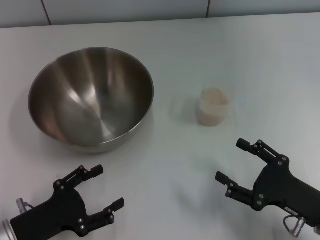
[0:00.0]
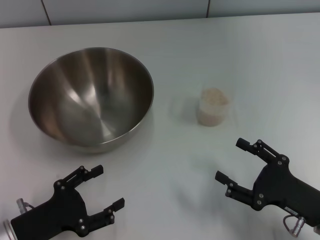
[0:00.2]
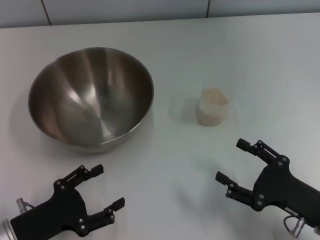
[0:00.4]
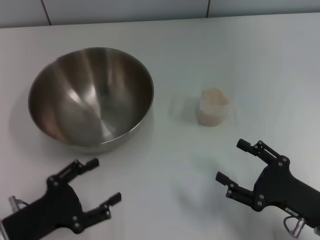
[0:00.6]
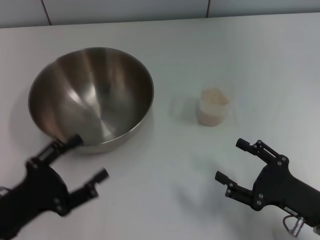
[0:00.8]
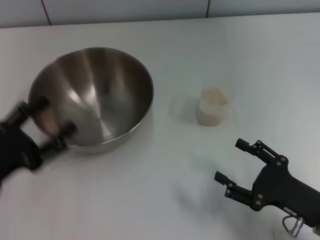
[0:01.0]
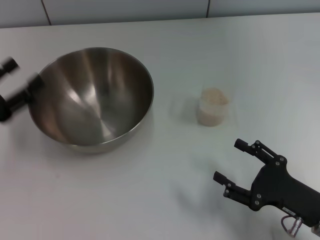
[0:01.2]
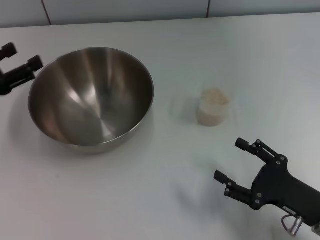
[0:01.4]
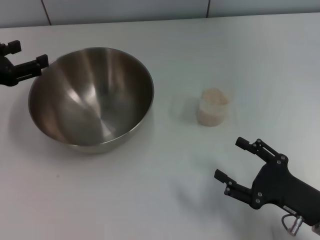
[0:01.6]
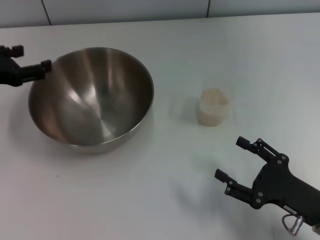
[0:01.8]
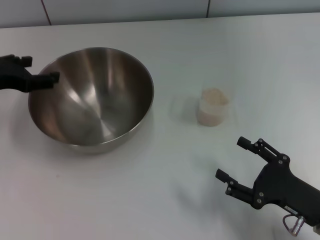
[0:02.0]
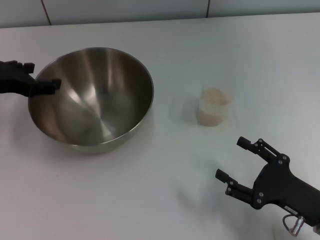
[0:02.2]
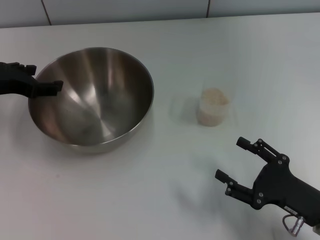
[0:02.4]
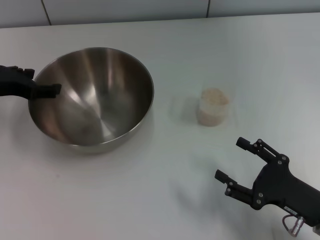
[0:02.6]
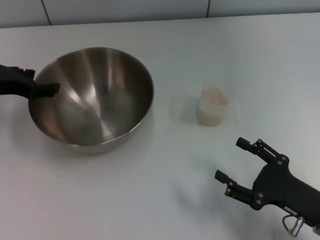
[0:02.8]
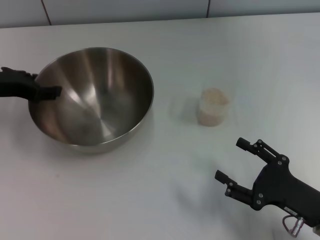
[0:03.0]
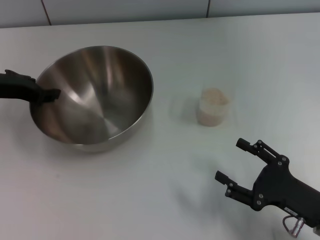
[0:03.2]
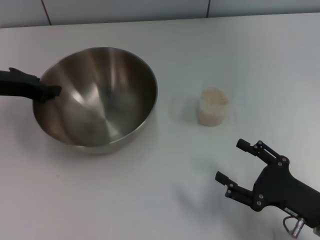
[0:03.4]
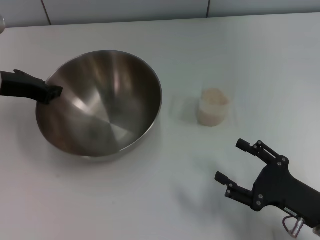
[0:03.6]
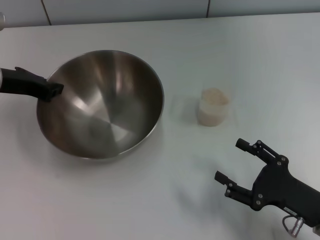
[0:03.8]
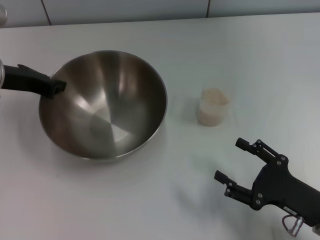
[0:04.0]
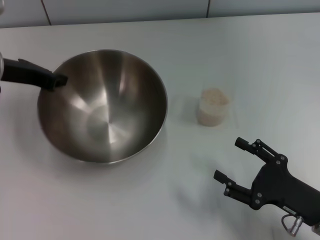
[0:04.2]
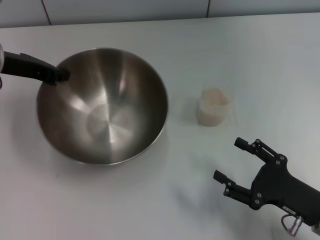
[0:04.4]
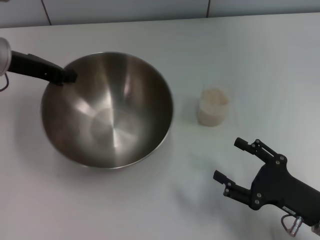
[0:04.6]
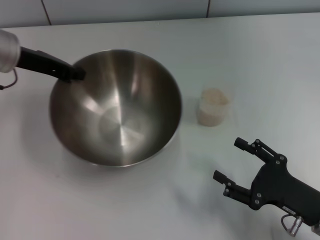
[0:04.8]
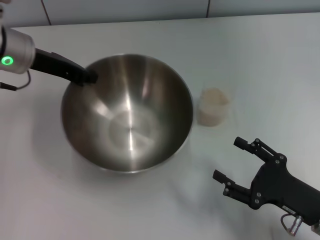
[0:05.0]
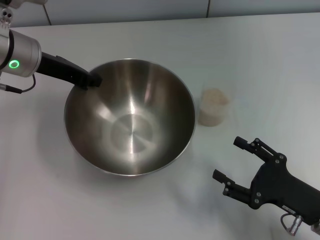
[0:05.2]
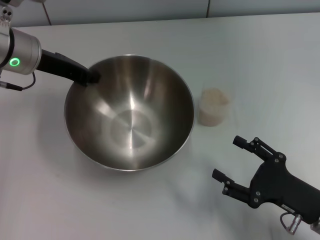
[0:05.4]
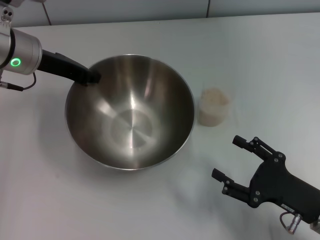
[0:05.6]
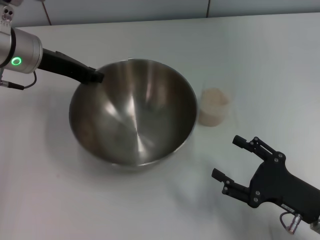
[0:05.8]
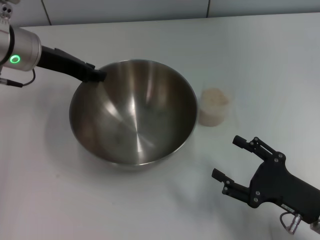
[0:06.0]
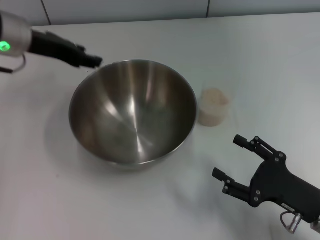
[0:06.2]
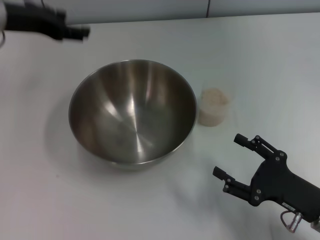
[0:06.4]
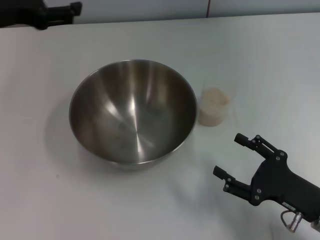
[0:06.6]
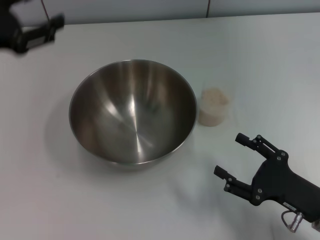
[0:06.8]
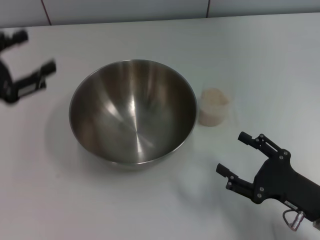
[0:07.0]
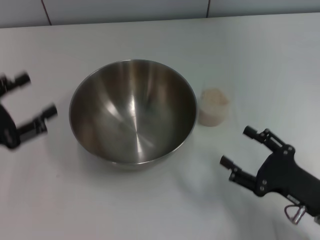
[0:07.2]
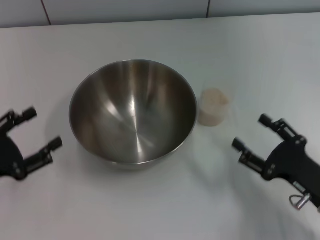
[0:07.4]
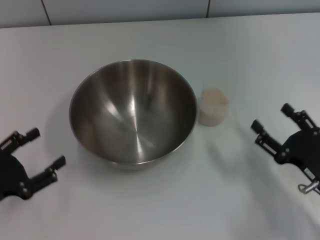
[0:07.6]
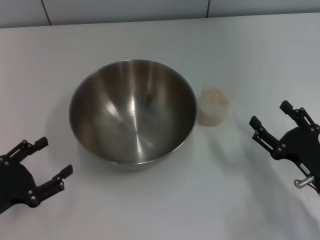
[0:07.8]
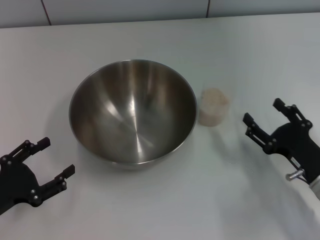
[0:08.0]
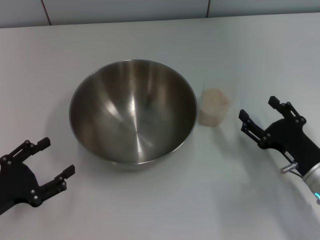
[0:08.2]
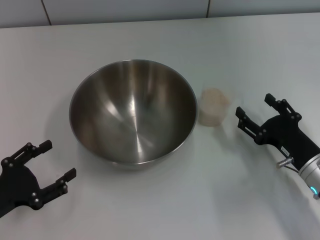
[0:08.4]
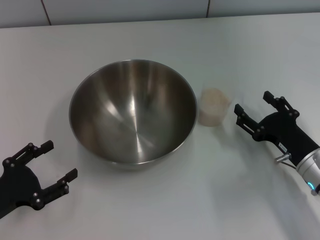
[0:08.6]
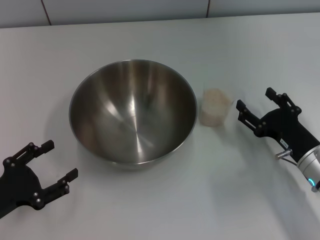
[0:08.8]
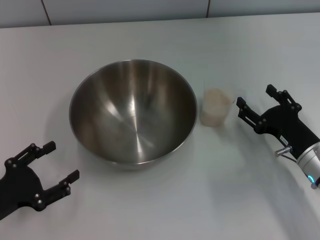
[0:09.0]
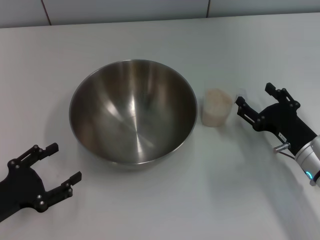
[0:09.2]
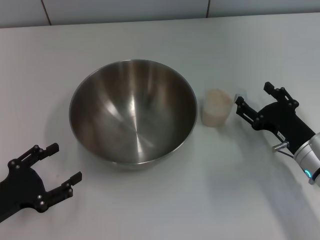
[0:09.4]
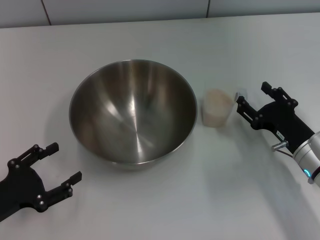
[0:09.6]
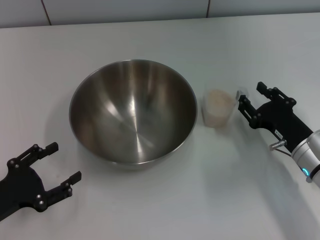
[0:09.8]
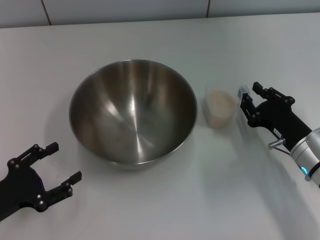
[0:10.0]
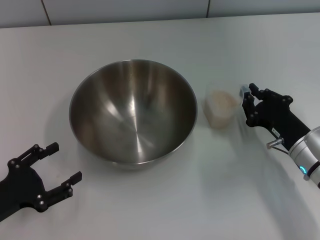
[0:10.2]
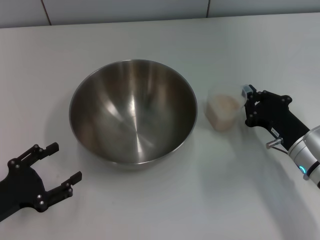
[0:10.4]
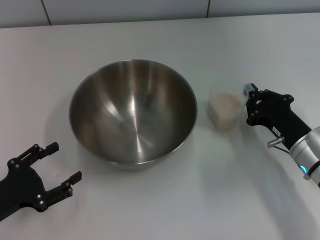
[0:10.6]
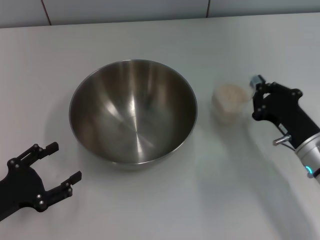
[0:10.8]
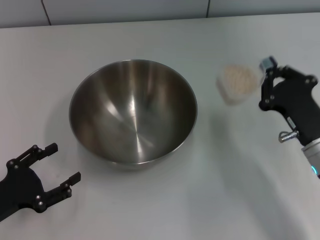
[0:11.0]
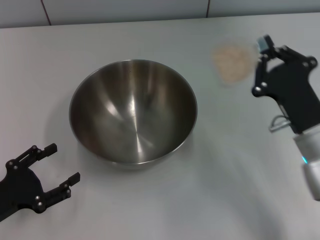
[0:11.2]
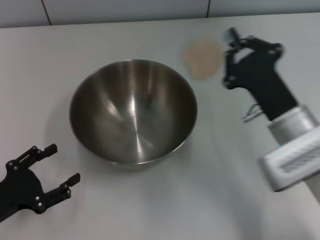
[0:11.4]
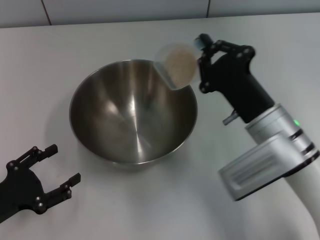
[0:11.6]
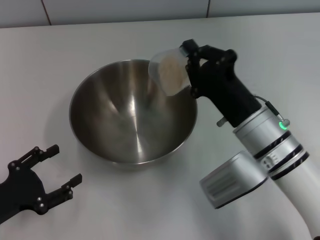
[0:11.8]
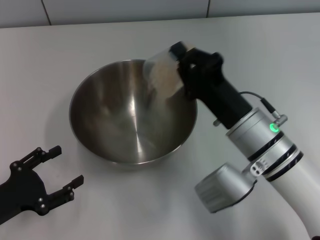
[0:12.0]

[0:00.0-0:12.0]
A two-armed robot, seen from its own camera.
Task of the whole recording: Place the bowl in the middle of the table with one hand and pour the rice from the grain cup into it with the other hand.
Step, 0:00.0 to 0:04.2: Pick up the bowl with the left gripper.
Step, 0:04.6 to 0:06.2: Place the bowl in the center of view with the left gripper.
Step, 0:06.4 to 0:11.2: Pick up the cup with rice in it with the right gripper.
0:00.0 to 0:01.6: The left gripper heads forward and upward, covering some 20 cm.
0:01.6 to 0:03.0: The left gripper ends up about 5 cm from where it was.
0:03.0 to 0:04.4: The left gripper ends up about 5 cm from where it was, and closes.
0:06.0 to 0:07.6: The left gripper travels backward, downward and to the left by approximately 30 cm, and opens.
0:07.6 to 0:09.0: The right gripper shifts some 5 cm forward.
0:09.0 to 0:10.4: The right gripper closes.
0:10.4 to 0:12.0: The right gripper goes about 10 cm to the left and upward.

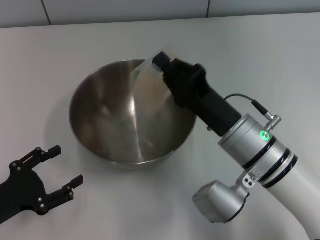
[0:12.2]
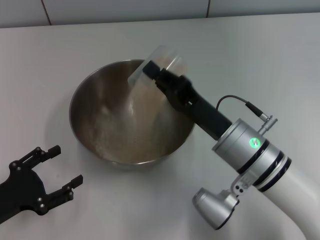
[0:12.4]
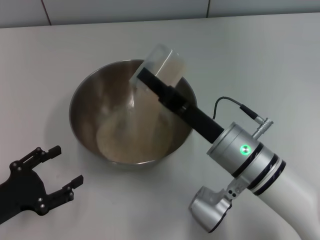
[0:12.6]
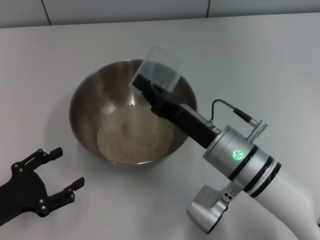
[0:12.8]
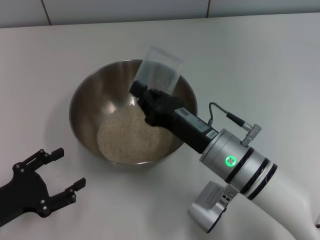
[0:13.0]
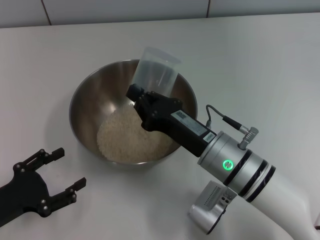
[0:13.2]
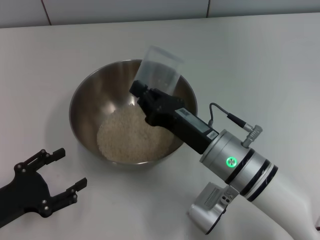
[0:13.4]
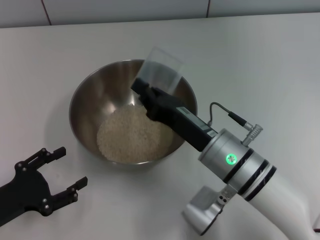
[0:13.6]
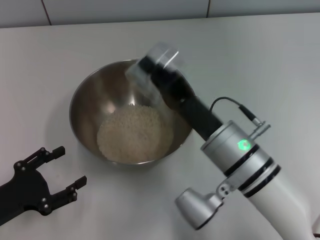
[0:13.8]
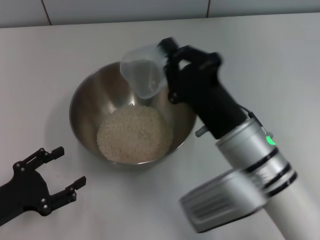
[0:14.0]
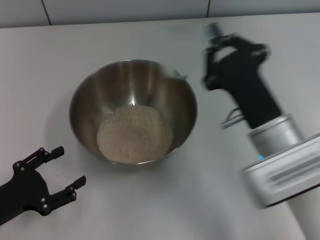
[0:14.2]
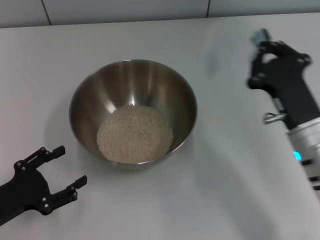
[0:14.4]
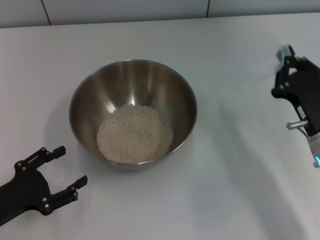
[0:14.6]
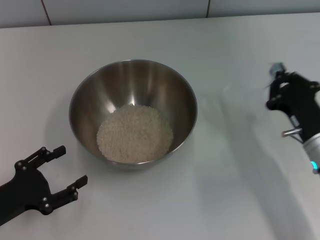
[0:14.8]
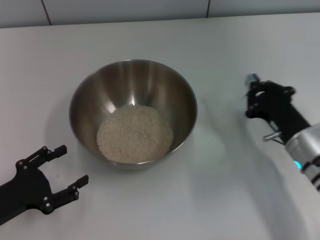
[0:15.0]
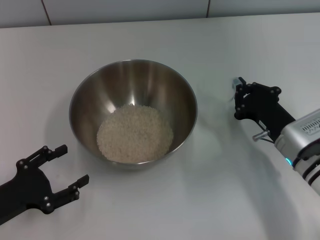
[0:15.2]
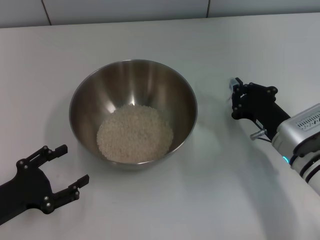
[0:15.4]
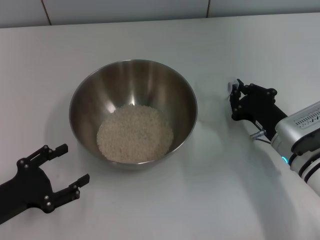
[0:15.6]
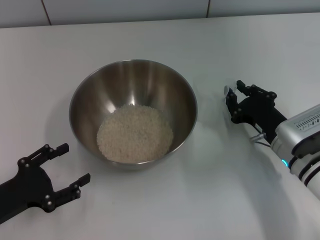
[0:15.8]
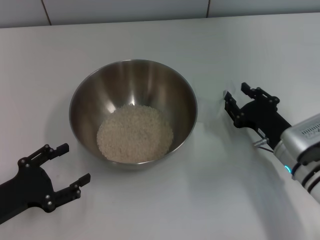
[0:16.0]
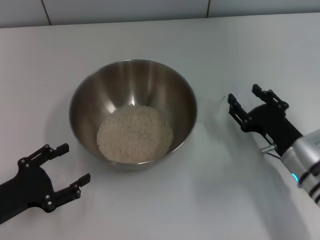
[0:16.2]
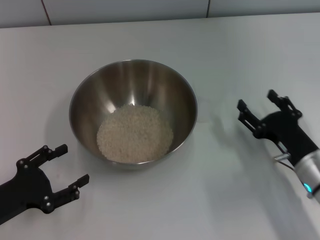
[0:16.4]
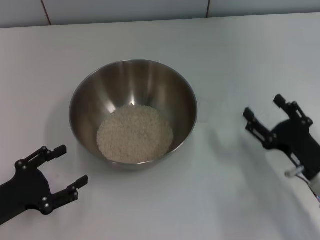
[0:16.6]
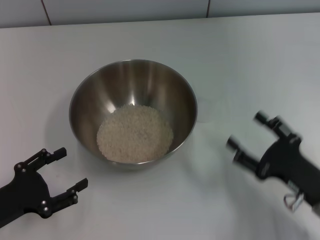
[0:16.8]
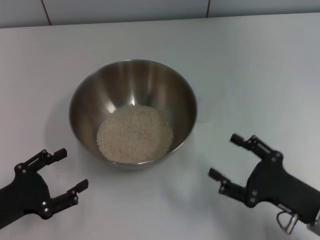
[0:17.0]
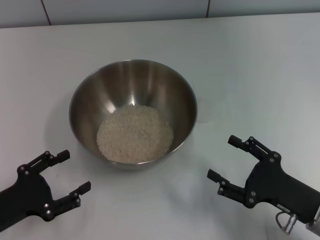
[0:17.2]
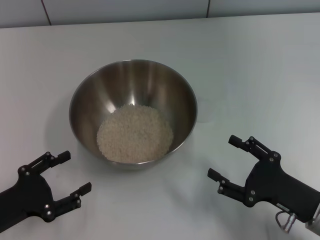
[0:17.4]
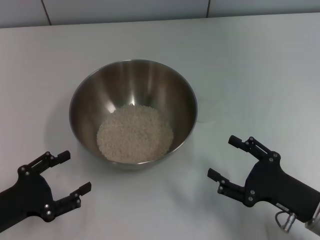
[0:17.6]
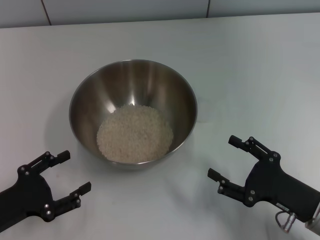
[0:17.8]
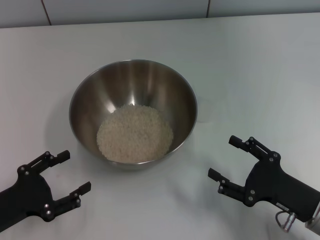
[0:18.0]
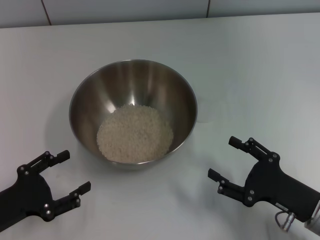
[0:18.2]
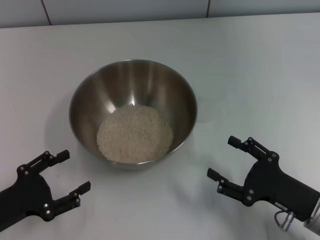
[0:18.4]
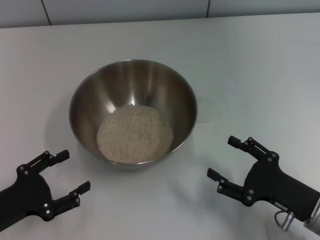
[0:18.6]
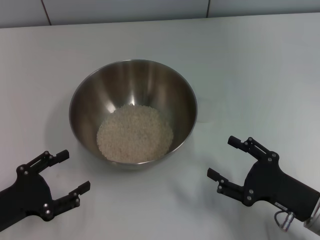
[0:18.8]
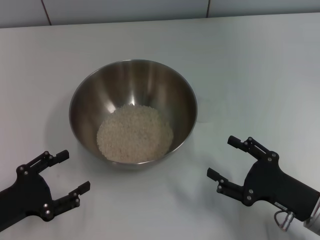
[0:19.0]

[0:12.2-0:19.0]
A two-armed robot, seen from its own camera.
Task of the whole recording: Place the bowl in the middle of the table with one hand and pour the rice from the grain cup into it with the other hand.
Step, 0:12.2 to 0:14.0: Pour the rice from the cup into the bowl with the right gripper.
Step, 0:14.2 to 0:16.4: Place the cup on the table with the right gripper.
0:13.6 to 0:15.0: The right gripper travels to the right by about 15 cm.
0:15.0 to 0:16.2: The right gripper opens.
0:16.2 to 0:17.6: The right gripper goes approximately 10 cm backward, and opens.
0:17.6 to 0:19.0: The two grippers keep their place.
